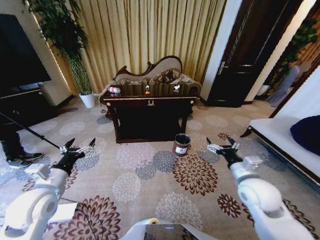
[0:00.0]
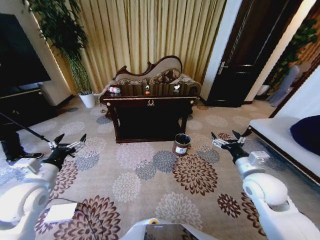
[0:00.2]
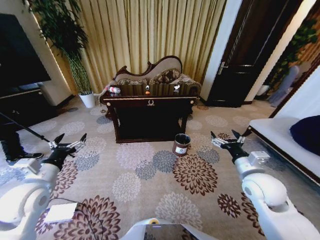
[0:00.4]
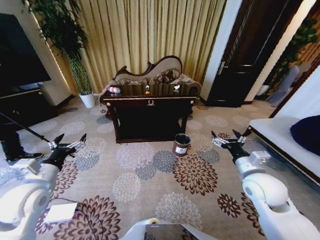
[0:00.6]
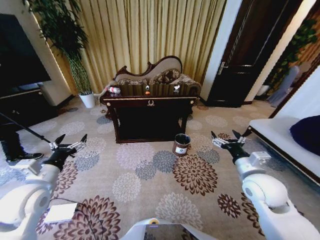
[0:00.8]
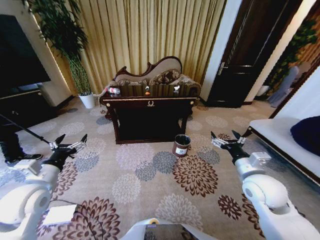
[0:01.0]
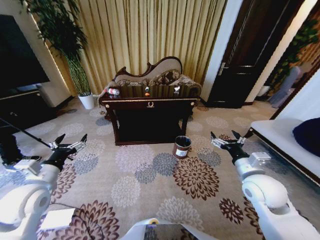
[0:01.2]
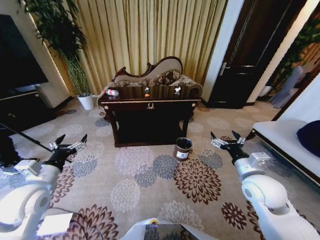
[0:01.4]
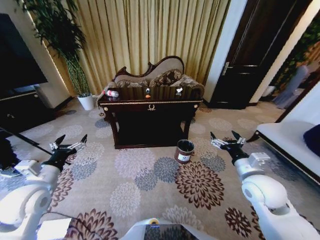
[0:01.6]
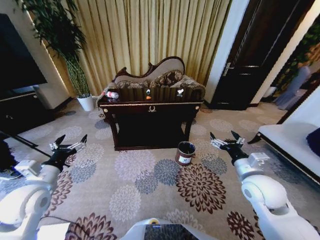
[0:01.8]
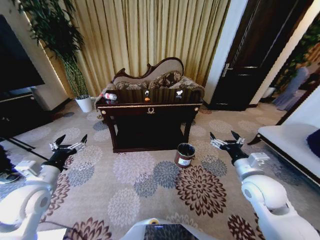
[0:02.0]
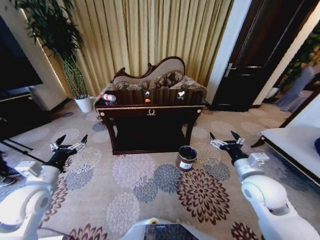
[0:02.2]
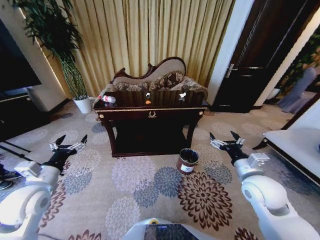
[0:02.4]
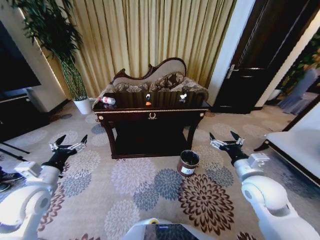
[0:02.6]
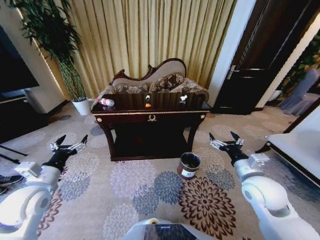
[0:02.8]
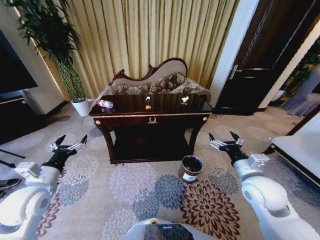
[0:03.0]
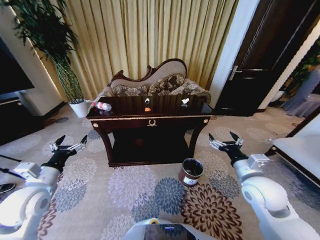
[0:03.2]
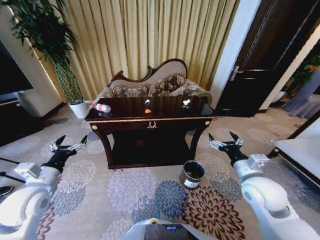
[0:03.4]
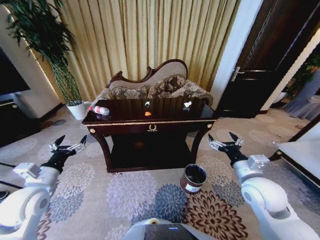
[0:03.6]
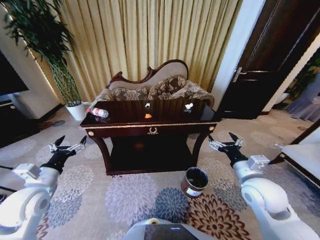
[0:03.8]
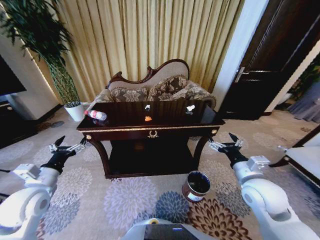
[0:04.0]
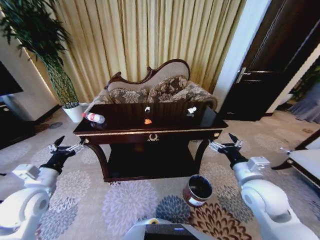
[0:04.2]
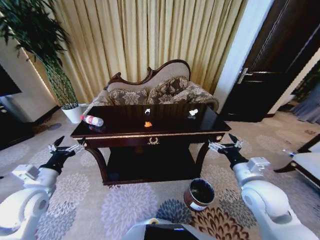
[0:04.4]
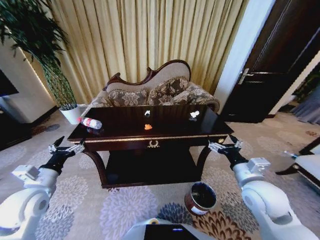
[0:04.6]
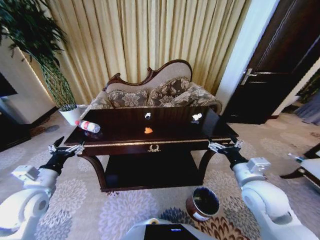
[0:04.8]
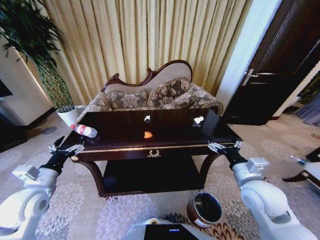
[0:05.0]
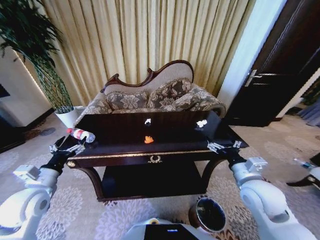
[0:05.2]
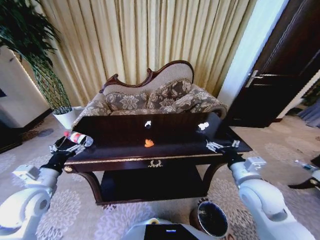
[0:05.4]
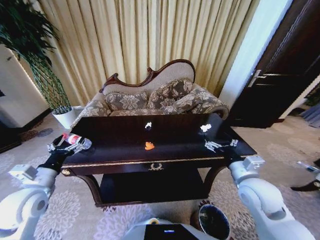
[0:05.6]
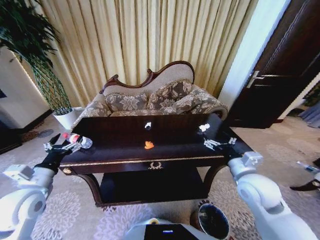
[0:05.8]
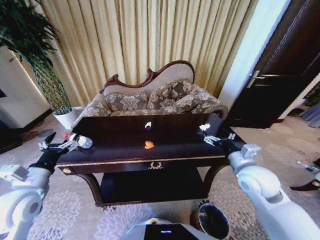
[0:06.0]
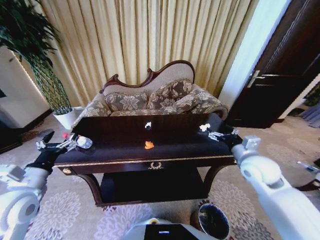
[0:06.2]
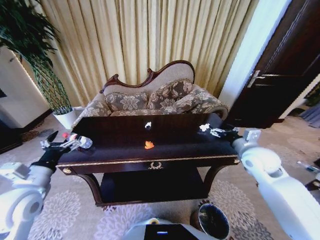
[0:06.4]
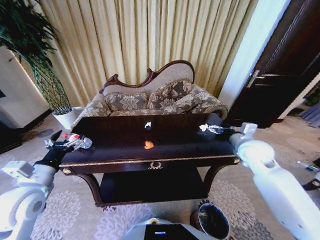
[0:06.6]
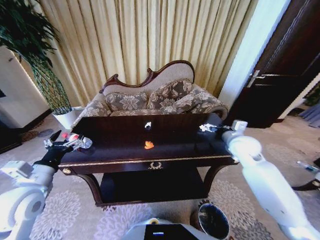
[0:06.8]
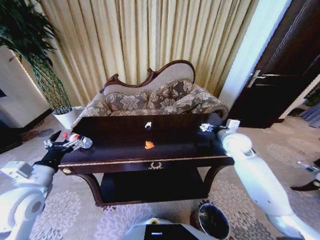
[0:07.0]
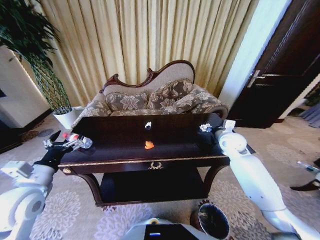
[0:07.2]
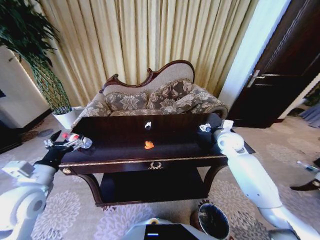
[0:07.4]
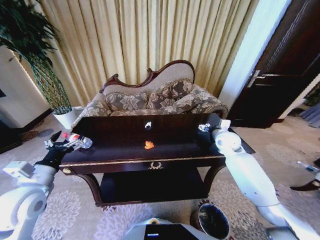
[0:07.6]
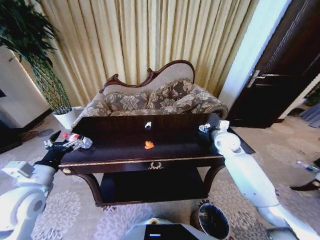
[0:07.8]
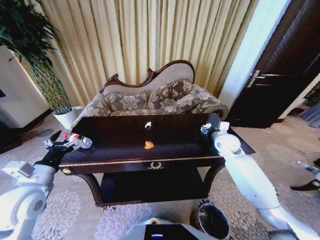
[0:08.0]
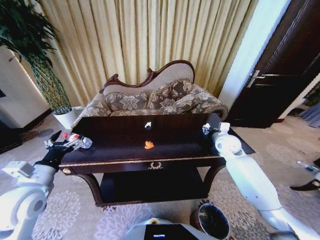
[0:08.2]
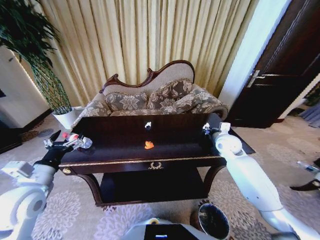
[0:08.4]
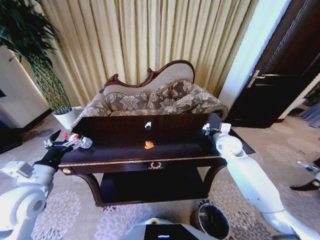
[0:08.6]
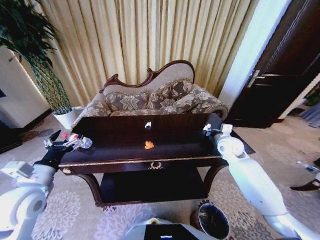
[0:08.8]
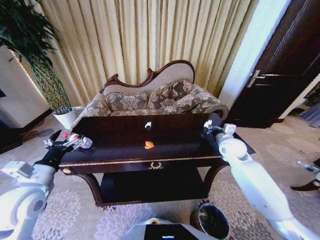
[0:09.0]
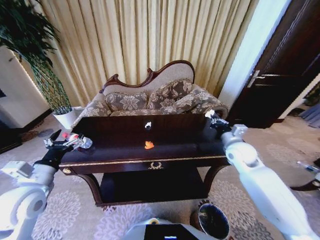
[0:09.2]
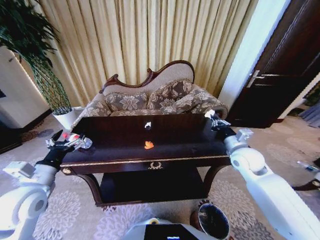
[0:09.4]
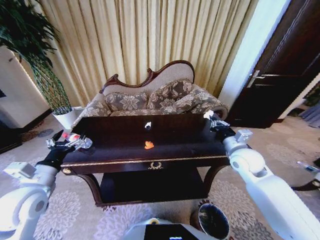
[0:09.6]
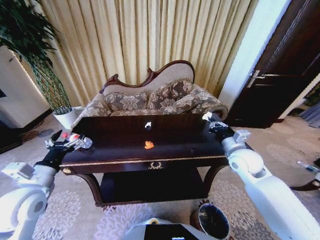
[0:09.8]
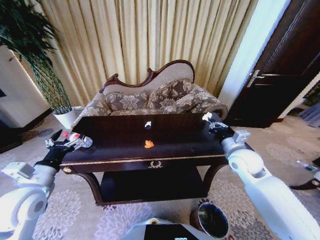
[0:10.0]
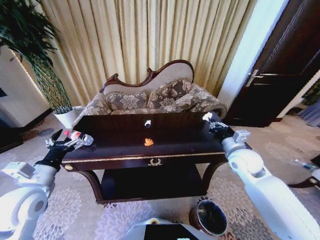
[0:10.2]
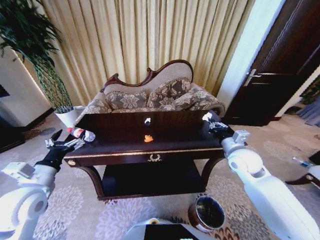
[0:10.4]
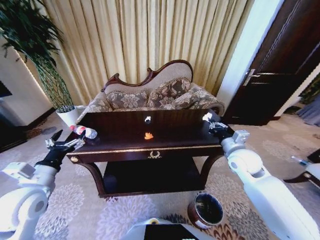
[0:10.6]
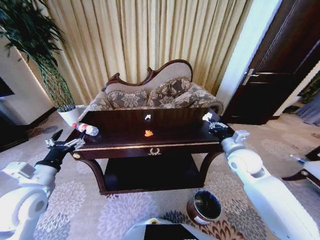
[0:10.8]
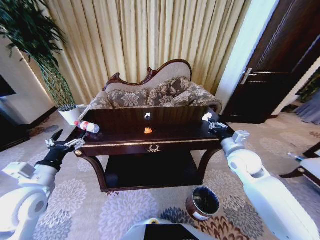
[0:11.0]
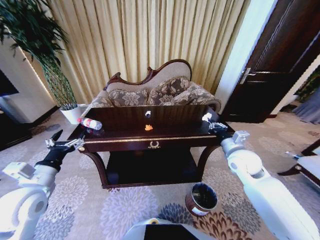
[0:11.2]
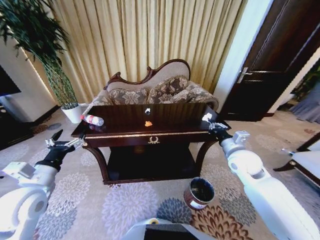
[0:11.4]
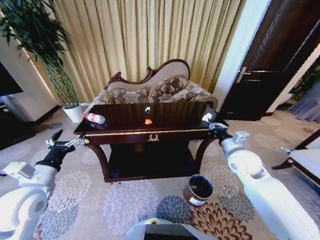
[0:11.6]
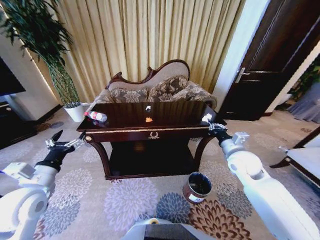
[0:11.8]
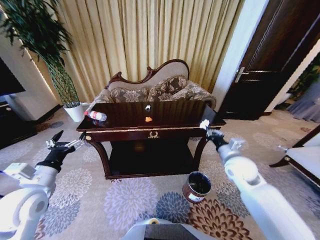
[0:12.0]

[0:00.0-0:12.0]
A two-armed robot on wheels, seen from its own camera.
Task of the whole recording: Move to the front of the table and place the trash on the table into the trash bin.
0:06.0 to 0:07.6: The right gripper goes some 20 cm forward.
0:07.6 to 0:09.0: The right gripper closes up.
0:09.0 to 0:10.4: The right gripper heads backward, covering some 5 cm.

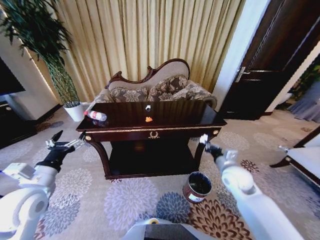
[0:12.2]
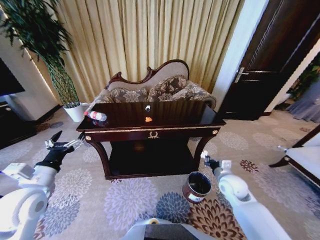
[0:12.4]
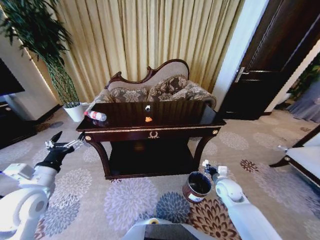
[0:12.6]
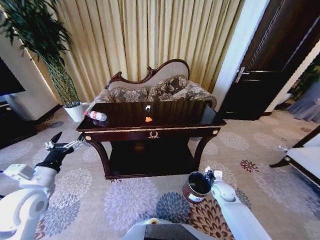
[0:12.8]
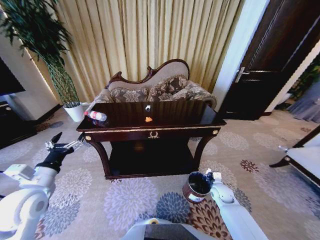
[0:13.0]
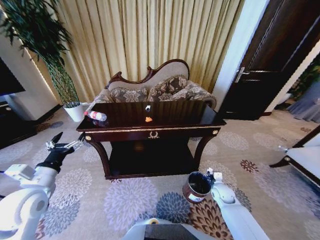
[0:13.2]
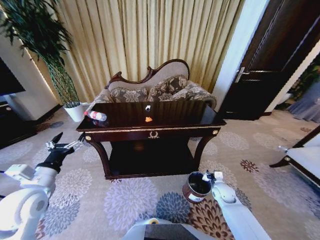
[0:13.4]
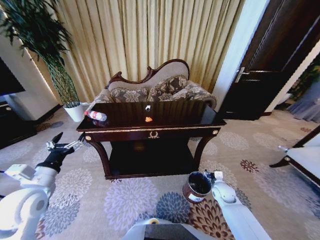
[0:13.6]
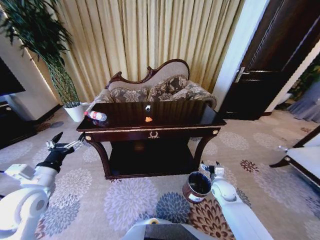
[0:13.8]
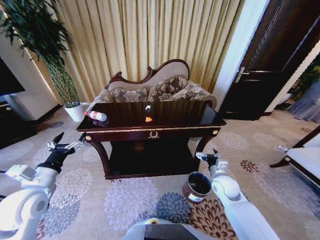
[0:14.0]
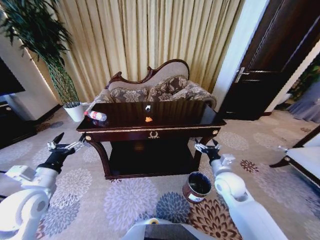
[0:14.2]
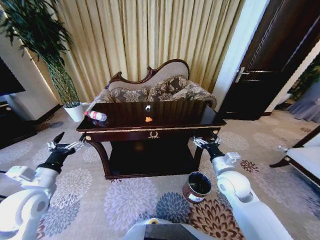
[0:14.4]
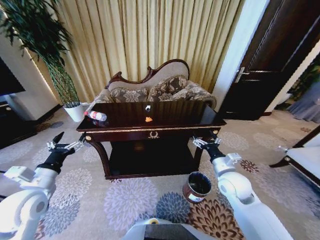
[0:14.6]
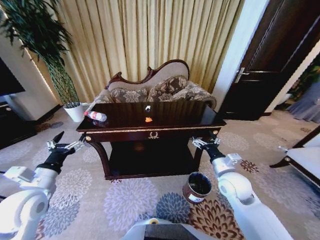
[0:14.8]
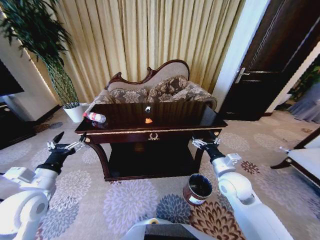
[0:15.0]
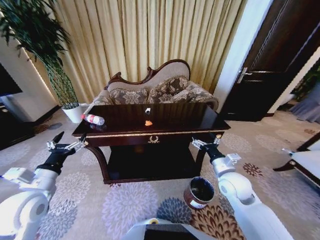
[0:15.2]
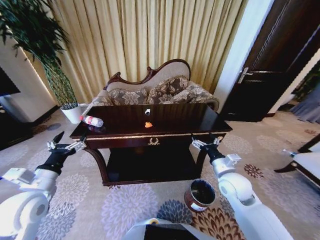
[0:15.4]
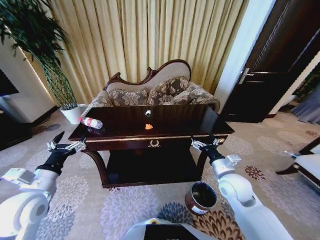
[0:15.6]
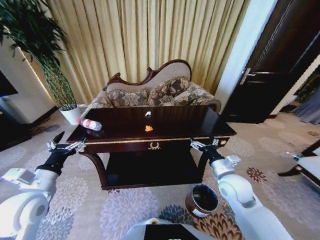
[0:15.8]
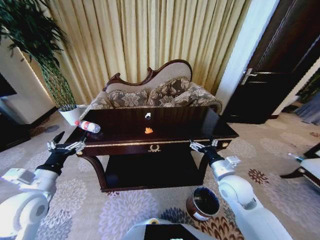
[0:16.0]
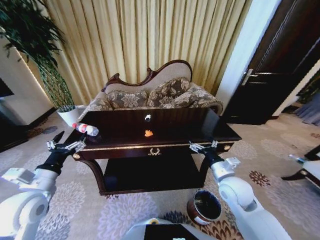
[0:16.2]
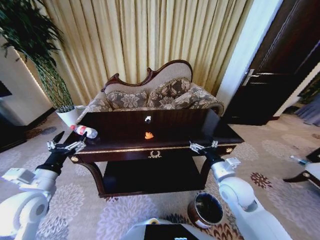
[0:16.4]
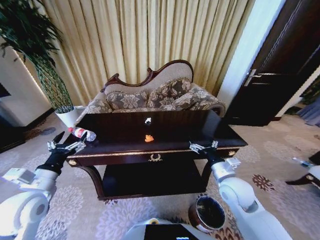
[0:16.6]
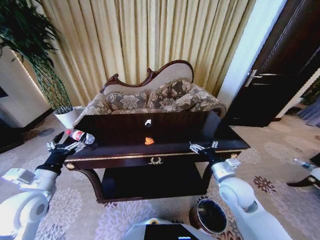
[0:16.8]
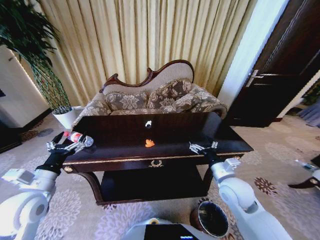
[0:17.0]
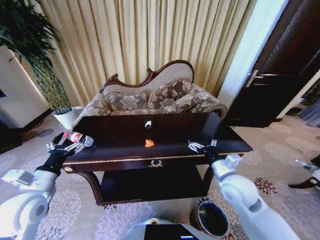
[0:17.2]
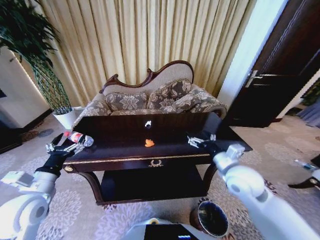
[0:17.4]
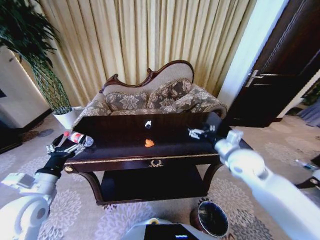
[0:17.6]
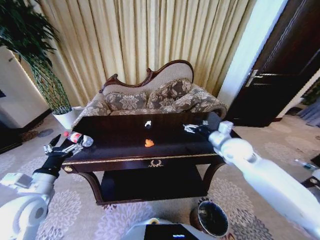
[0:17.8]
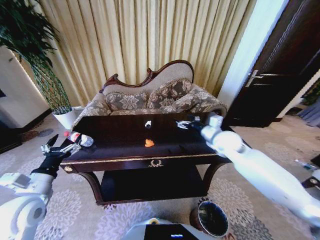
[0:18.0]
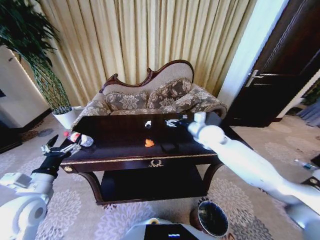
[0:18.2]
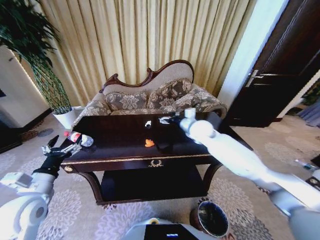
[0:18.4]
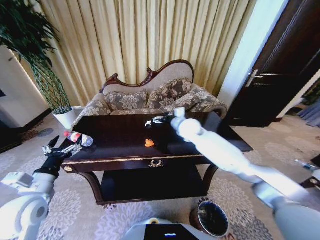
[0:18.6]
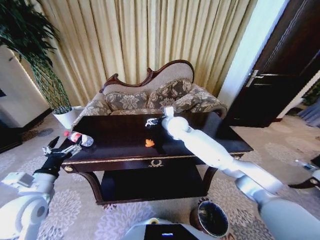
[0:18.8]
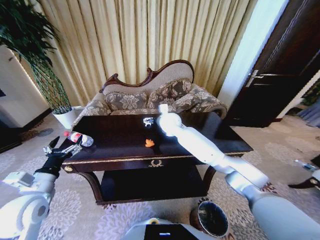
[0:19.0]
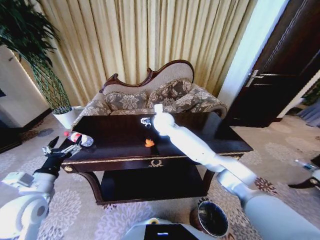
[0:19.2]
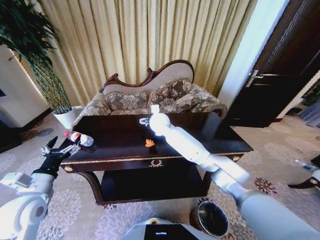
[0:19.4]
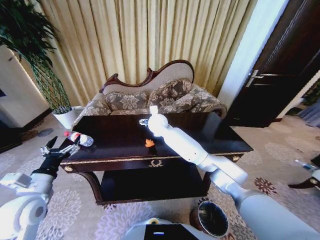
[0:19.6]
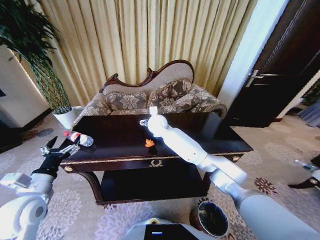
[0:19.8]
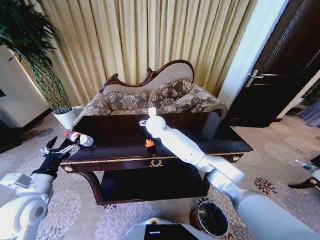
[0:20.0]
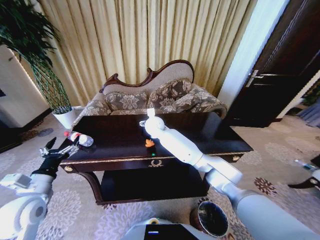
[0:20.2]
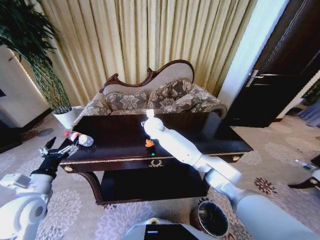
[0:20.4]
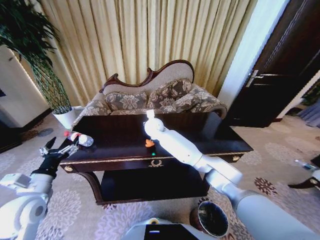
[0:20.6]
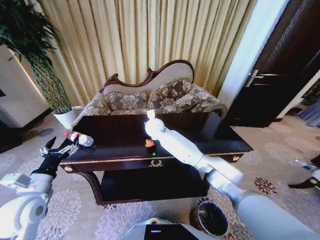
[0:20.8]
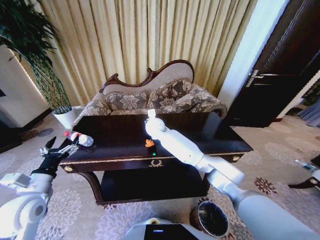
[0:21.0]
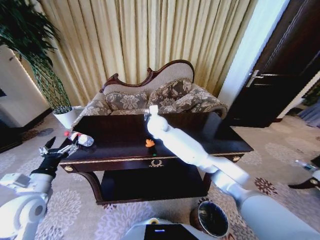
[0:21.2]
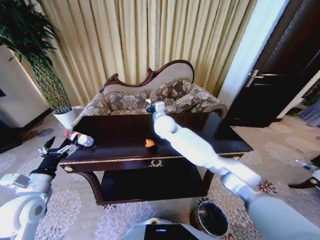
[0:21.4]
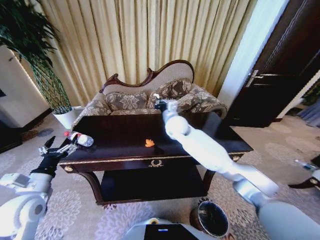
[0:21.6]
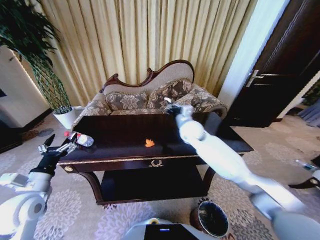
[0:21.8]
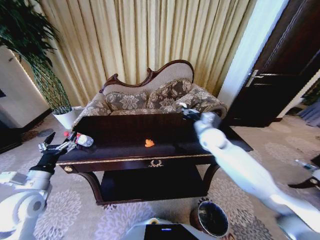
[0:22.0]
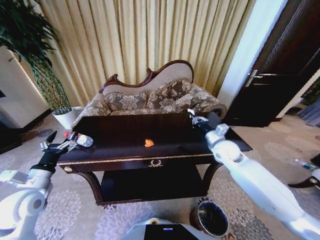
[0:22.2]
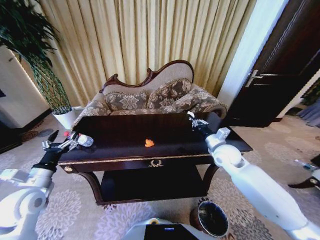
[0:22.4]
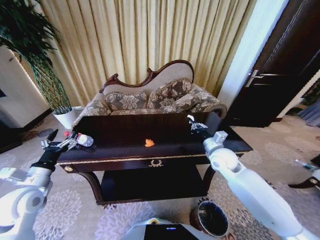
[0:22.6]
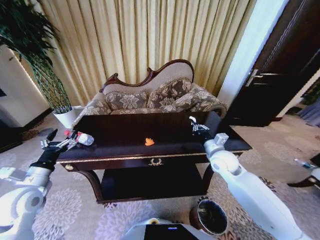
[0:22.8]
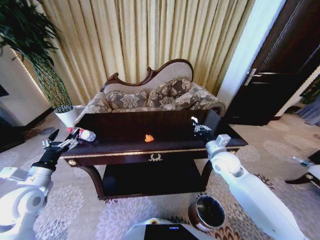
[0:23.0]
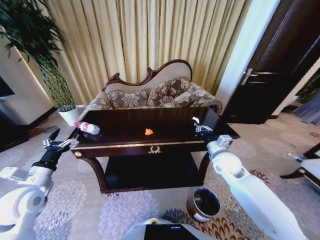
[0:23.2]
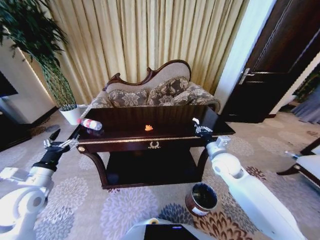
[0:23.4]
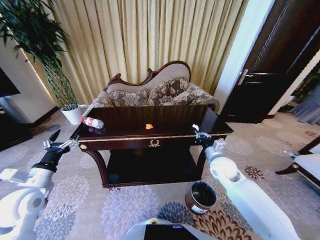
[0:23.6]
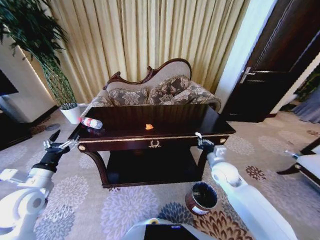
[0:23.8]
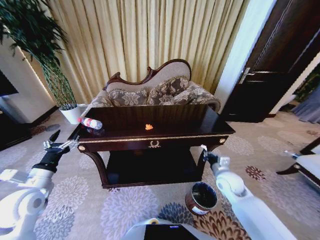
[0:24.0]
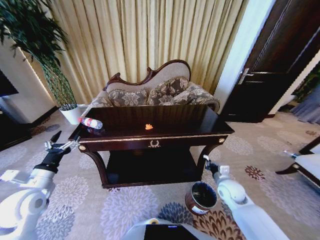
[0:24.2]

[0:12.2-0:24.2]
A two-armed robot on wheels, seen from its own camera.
Task of the whole recording: Move to the front of the table and place the trash on the table into the trash bin.
0:12.2 to 0:13.8: The right gripper heads downward, covering roughly 15 cm, and opens up.
0:13.8 to 0:15.2: The right gripper moves upward, some 15 cm.
0:16.6 to 0:18.2: The right gripper moves forward and upward, some 20 cm.
0:18.2 to 0:19.8: The right gripper moves to the left, roughly 25 cm.
0:19.8 to 0:21.2: The right gripper closes its fingers.
0:21.2 to 0:22.6: The right gripper moves to the right and backward, approximately 30 cm.
0:22.6 to 0:24.2: The right gripper travels downward, backward and to the right by approximately 20 cm.
